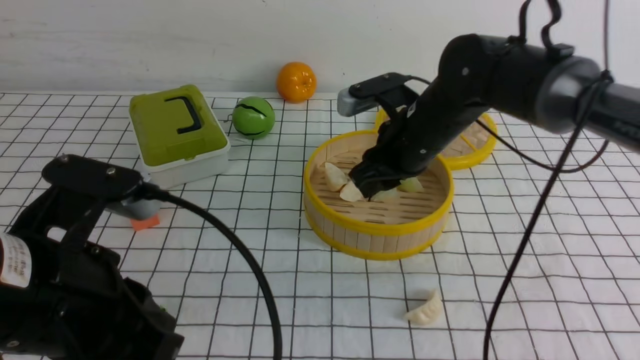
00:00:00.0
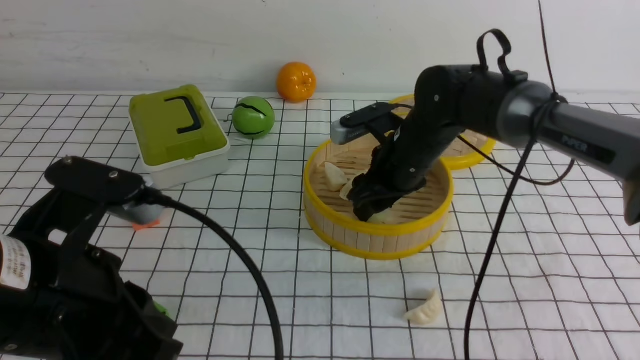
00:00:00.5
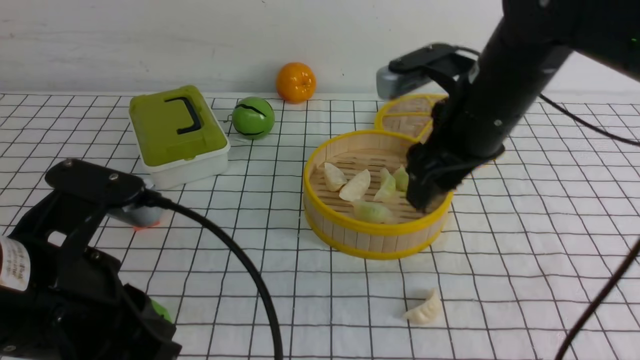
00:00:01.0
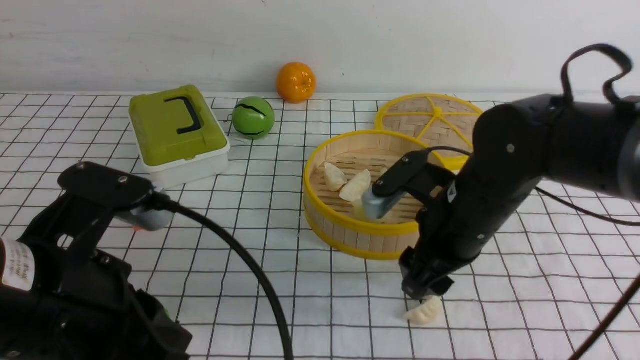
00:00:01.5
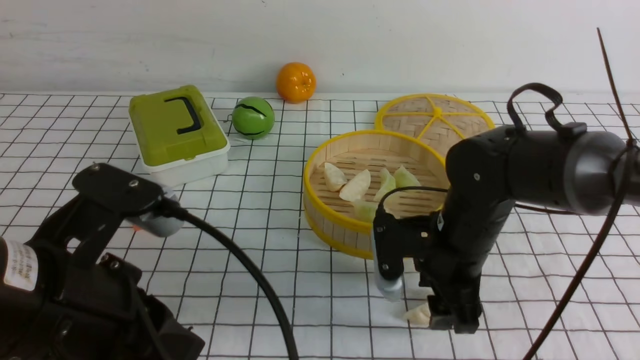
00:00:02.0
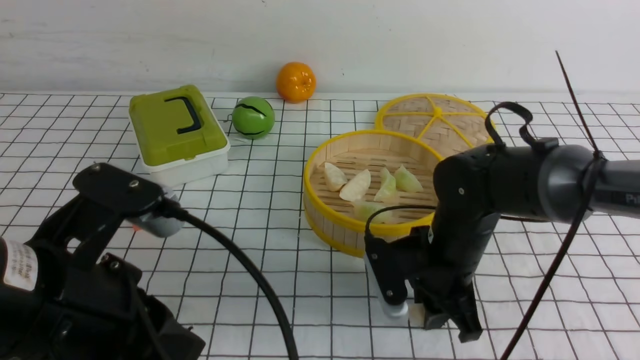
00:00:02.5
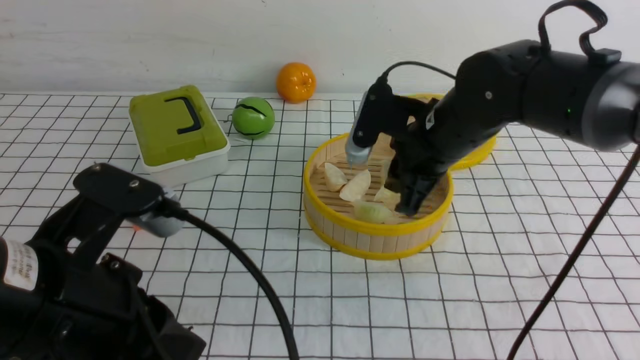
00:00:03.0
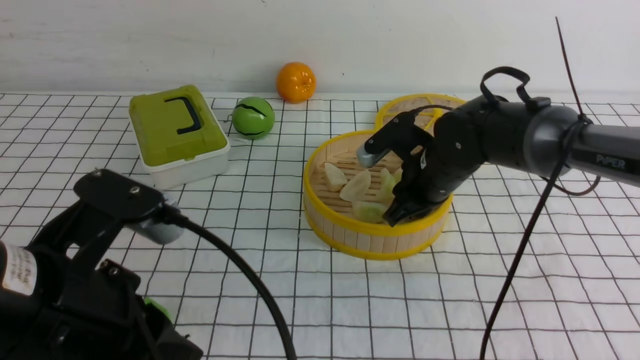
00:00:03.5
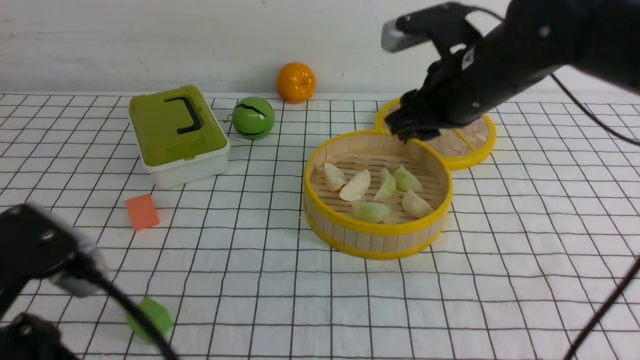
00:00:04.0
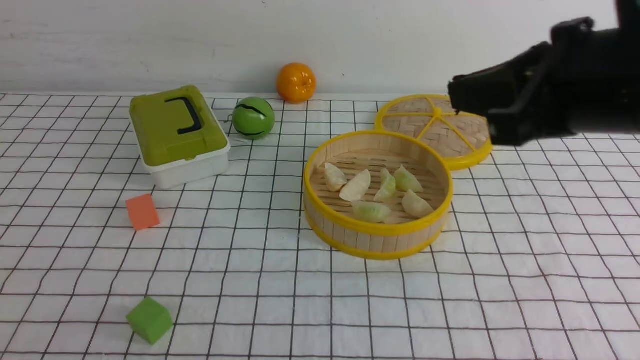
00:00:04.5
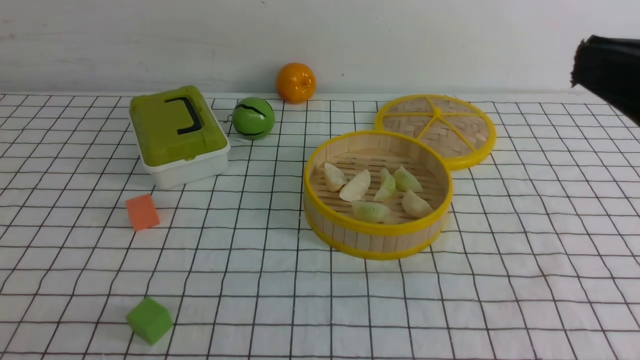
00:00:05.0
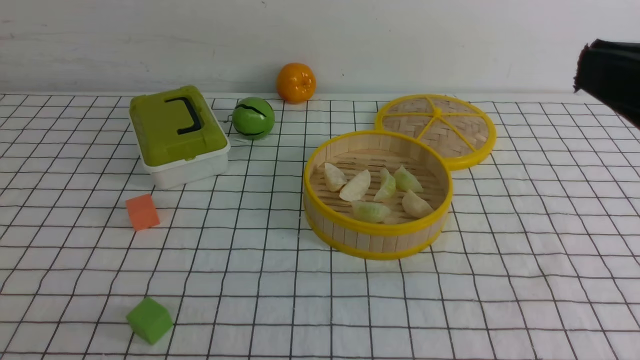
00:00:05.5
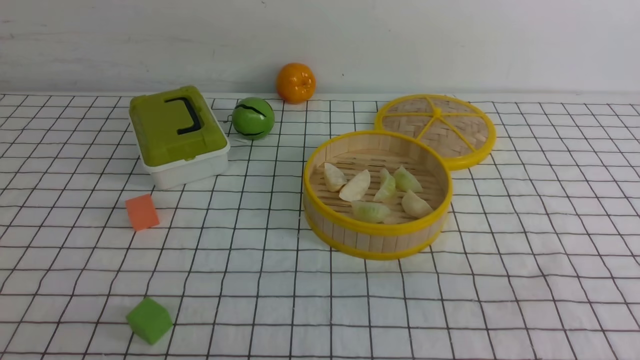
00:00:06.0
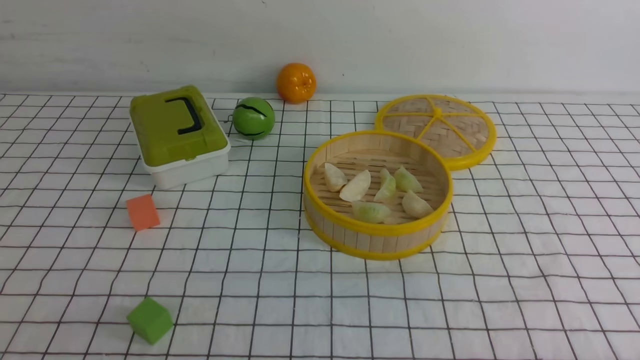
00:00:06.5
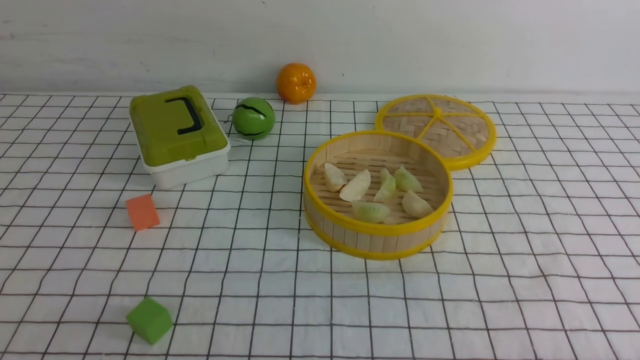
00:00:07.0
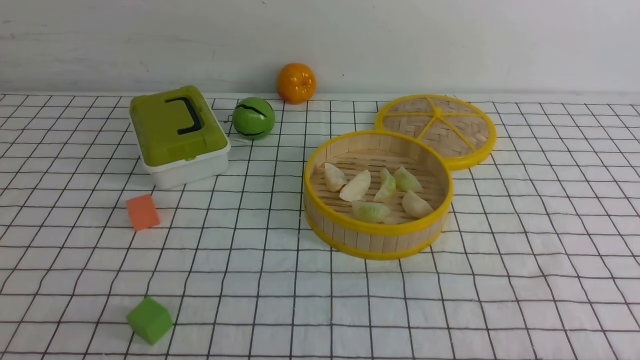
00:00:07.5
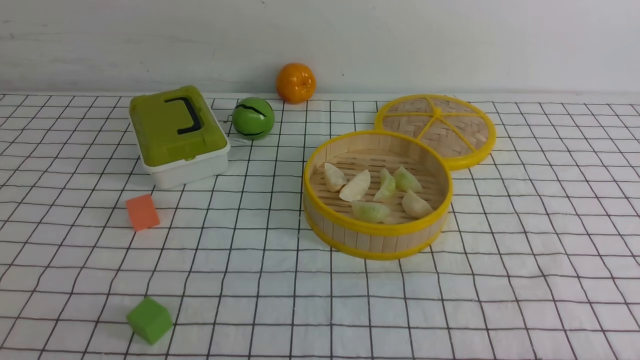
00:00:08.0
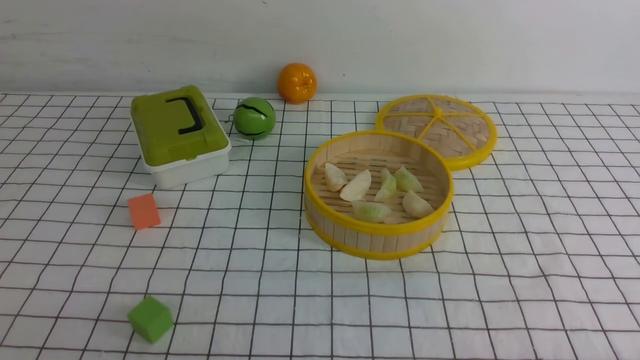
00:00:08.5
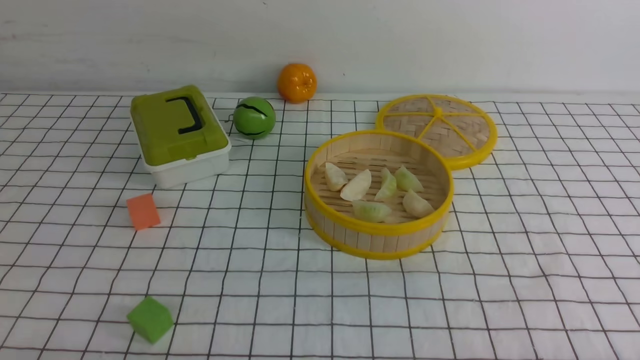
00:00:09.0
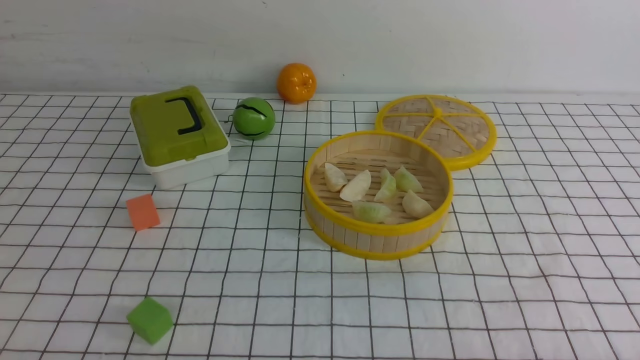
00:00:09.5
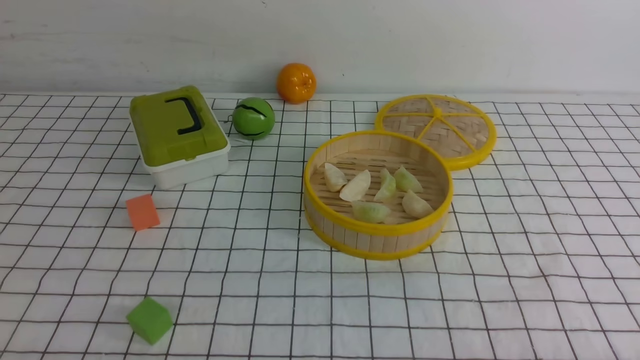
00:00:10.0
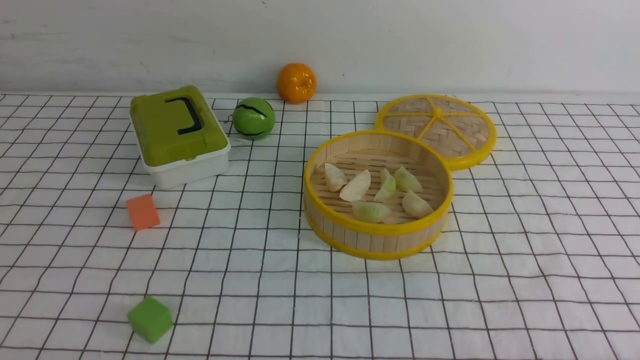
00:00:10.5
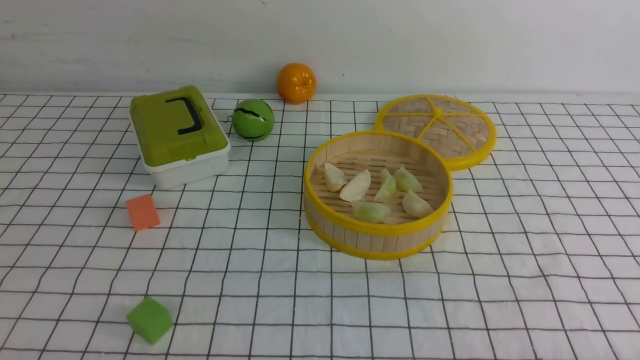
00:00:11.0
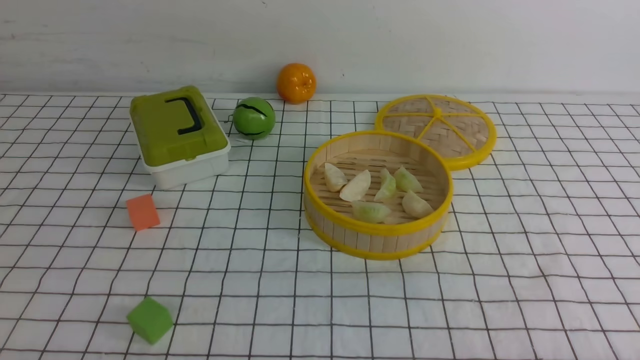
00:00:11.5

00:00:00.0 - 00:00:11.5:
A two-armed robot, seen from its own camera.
Task of the whole recording: put the dumplings into the steamer on the table with the white tablecloth.
Step, 00:00:01.0 - 00:00:03.0: use the right arm to grab a dumpling.
00:00:00.0 - 00:00:02.0: The right gripper heads backward and downward, covering about 10 cm, and opens its fingers.
00:00:02.0 - 00:00:04.0: The left gripper is displaced backward by some 5 cm, while the right gripper goes up and down, about 15 cm each way, reversing 2 times, and closes its fingers.
00:00:04.0 - 00:00:06.0: The left gripper heads backward and to the left, covering some 10 cm; the right gripper is displaced backward and to the right by approximately 30 cm, and closes its fingers.
00:00:09.5 - 00:00:11.5: The two grippers keep their place.
